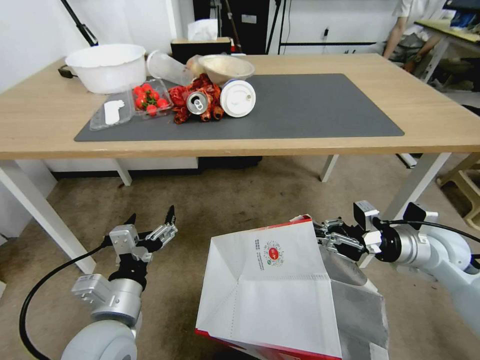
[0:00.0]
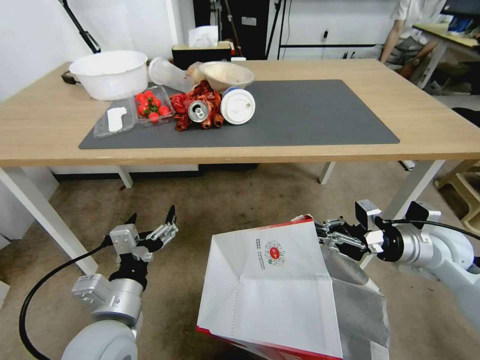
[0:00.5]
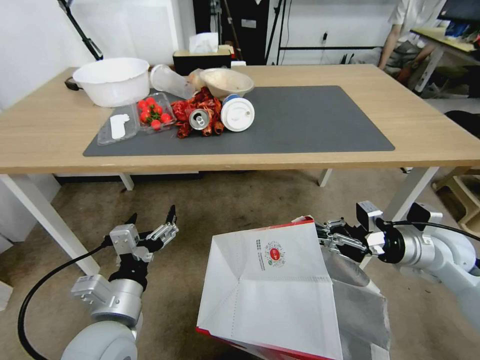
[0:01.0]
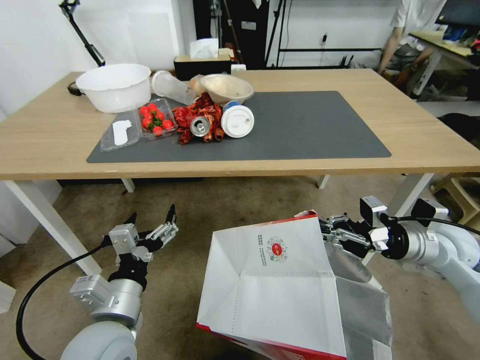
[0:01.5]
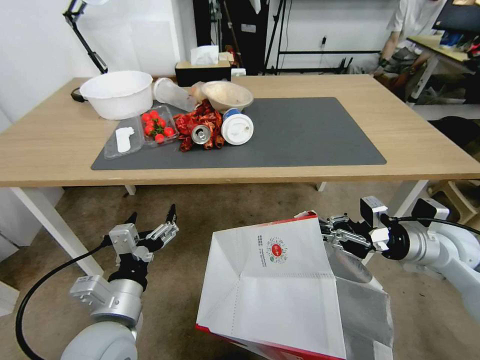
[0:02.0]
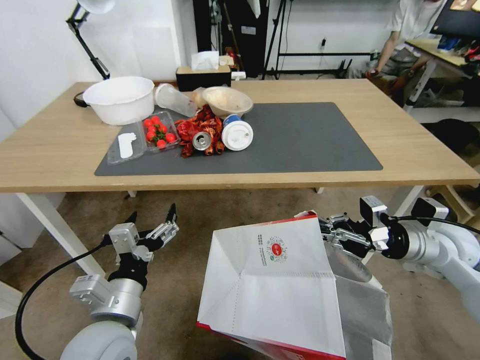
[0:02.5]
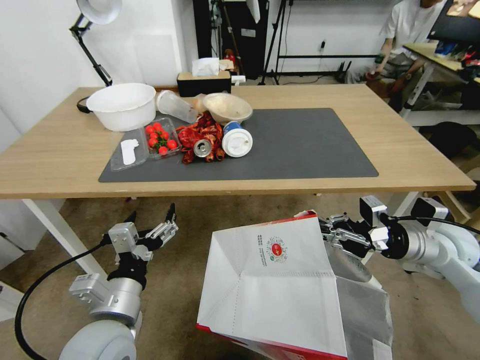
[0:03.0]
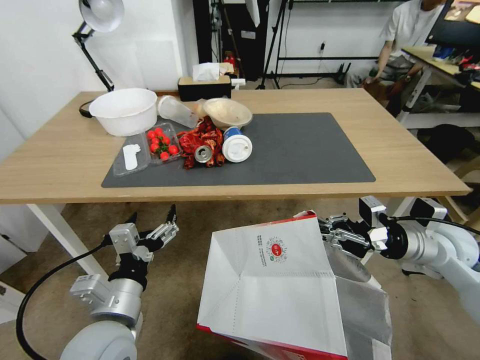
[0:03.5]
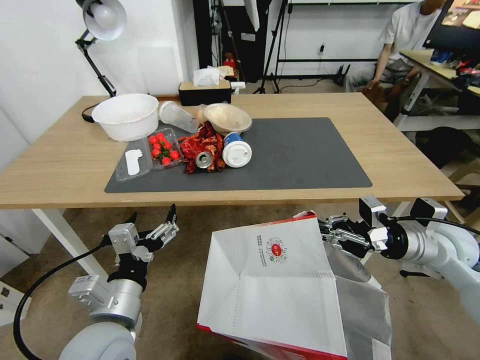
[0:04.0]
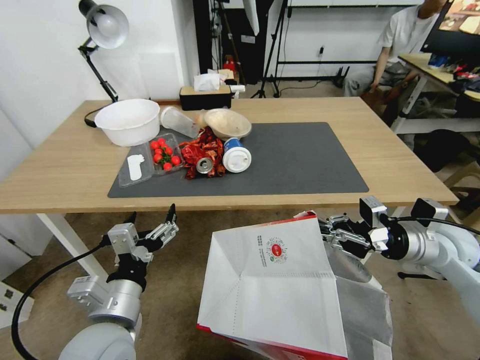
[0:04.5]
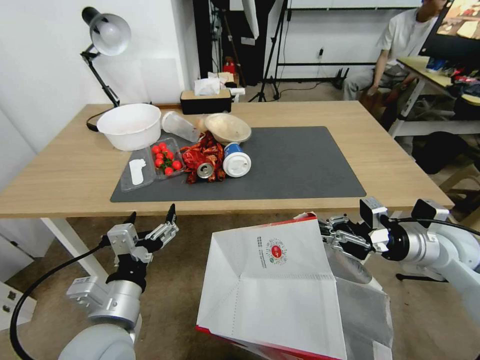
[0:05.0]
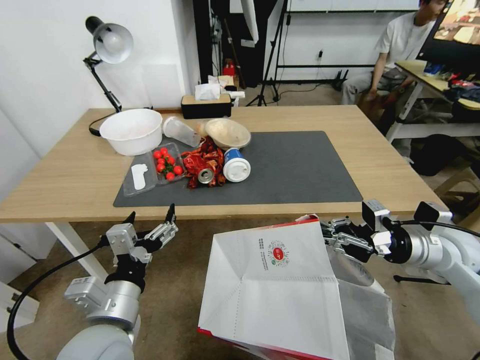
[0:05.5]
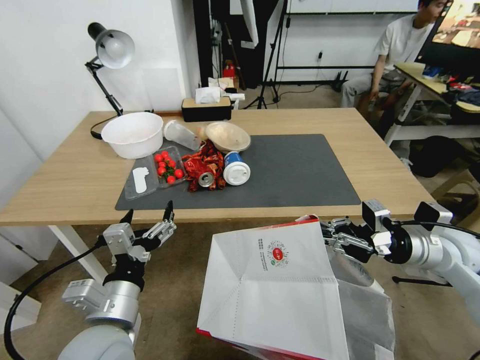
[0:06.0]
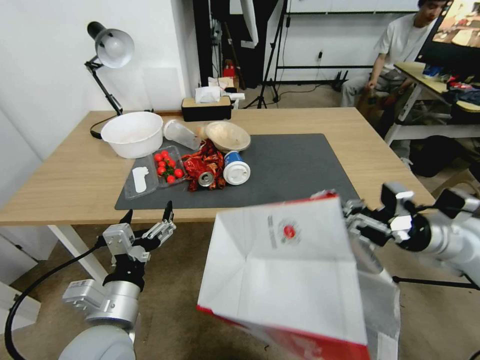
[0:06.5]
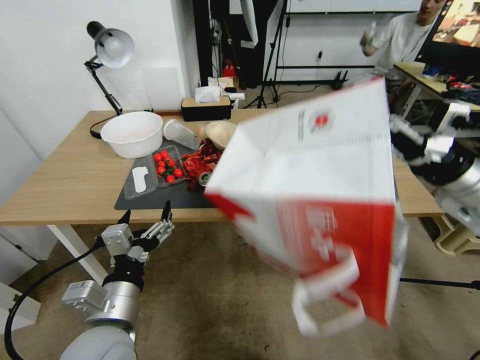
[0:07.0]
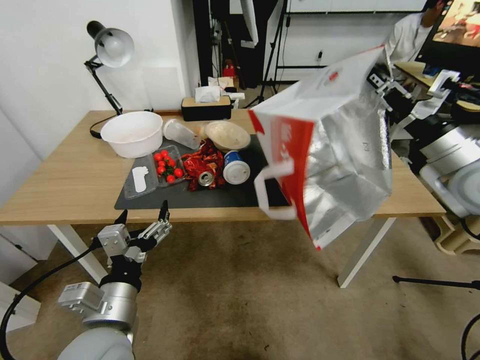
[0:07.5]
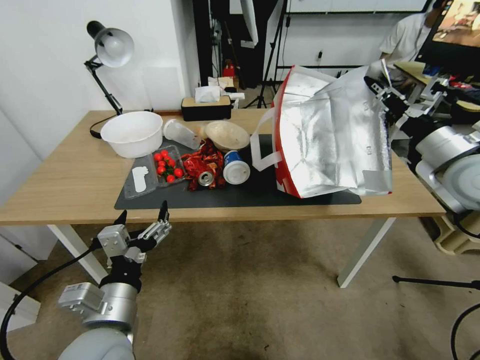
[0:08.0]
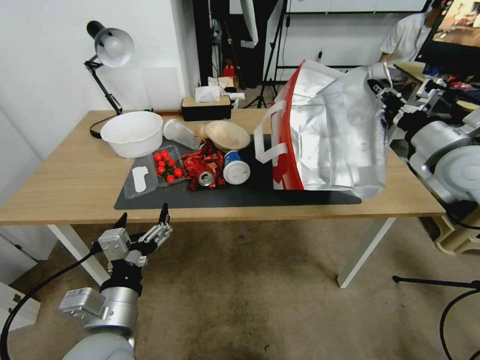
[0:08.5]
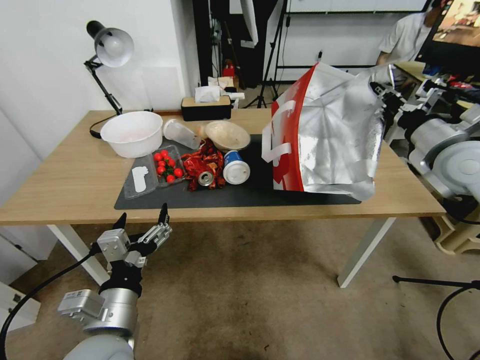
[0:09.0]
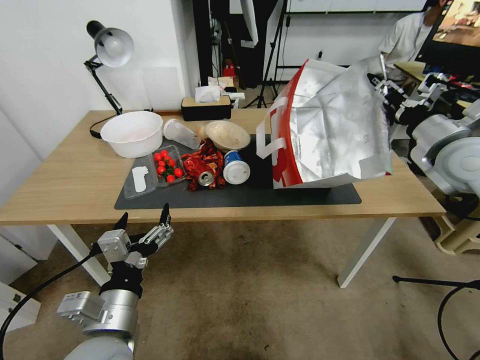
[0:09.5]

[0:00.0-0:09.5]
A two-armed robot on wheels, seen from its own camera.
Task of the whole recording: Pick up the food delivery bag from the floor and place it on the table.
0:05.5 to 0:07.5: The right gripper heads upward, covering about 15 cm.
0:07.5 to 0:09.5: The right gripper opens its fingers.

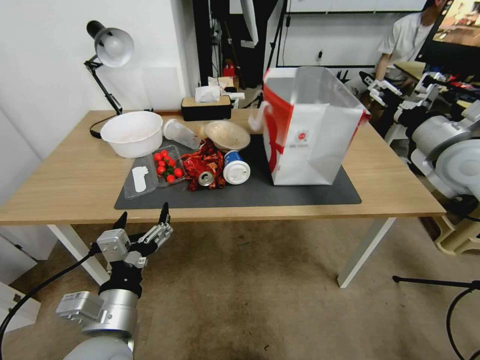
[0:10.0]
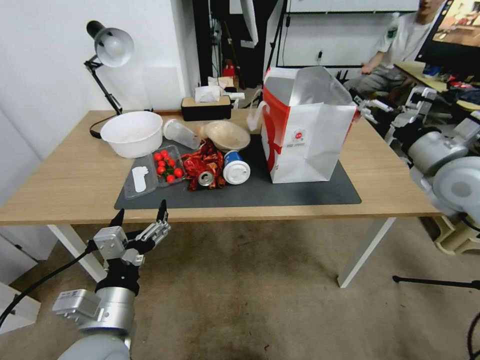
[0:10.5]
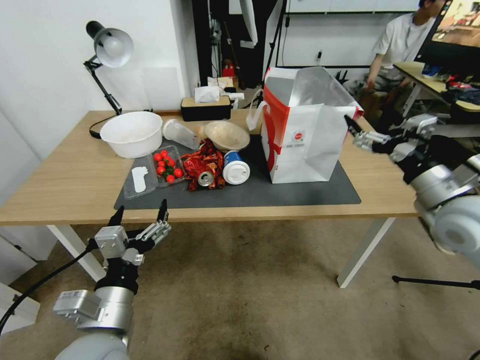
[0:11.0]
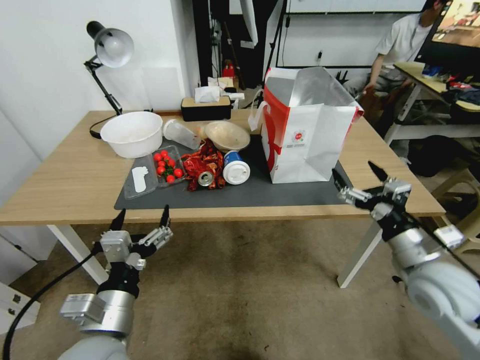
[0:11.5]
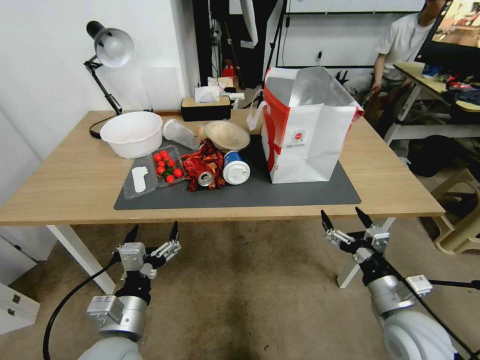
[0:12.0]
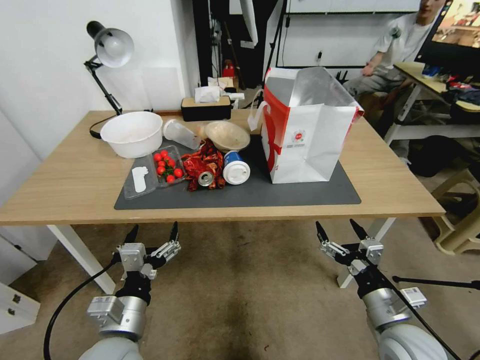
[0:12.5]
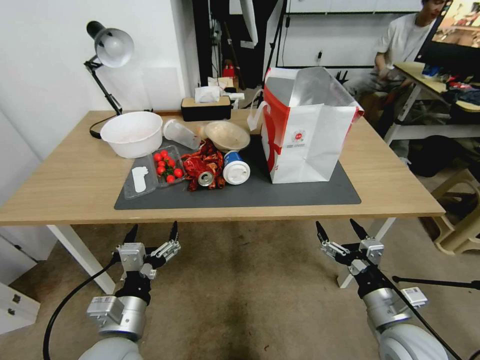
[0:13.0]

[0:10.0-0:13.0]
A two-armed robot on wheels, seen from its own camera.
Task of the whole recording: Pick up the food delivery bag from the floor and place it on the table.
0:10.0 to 0:11.5: The right gripper heads downward and backward, covering about 20 cm.
0:11.5 to 0:13.0: The right gripper moves downward and backward, about 10 cm.

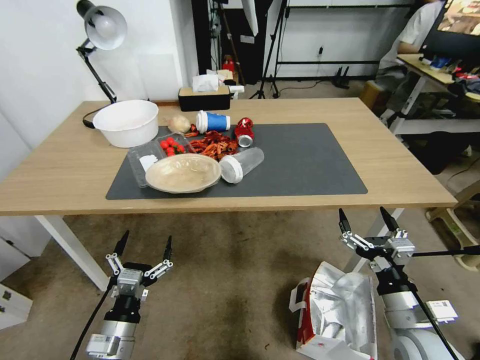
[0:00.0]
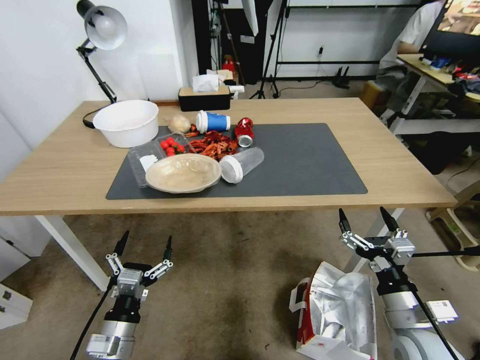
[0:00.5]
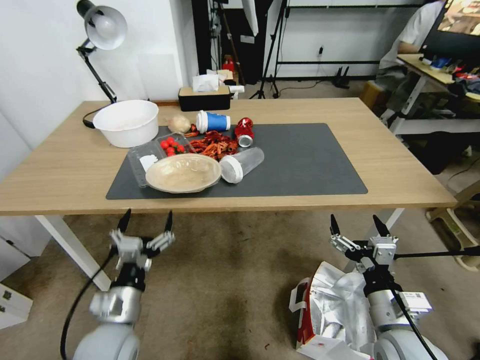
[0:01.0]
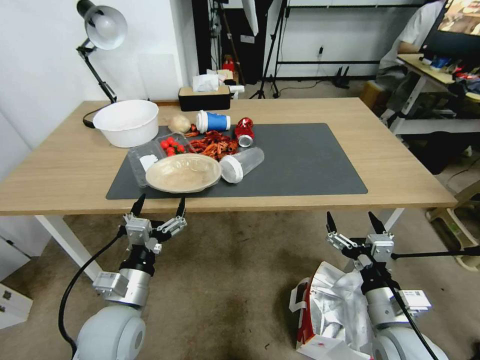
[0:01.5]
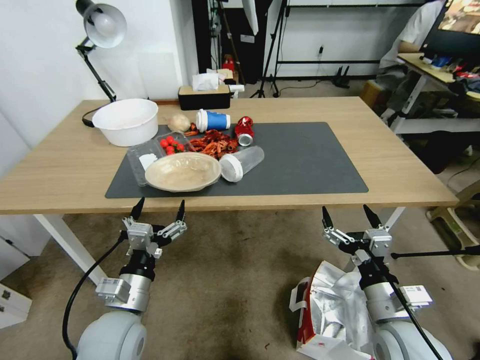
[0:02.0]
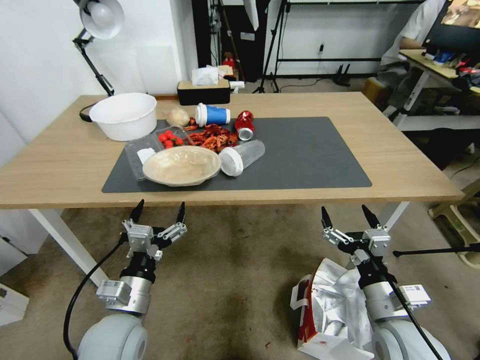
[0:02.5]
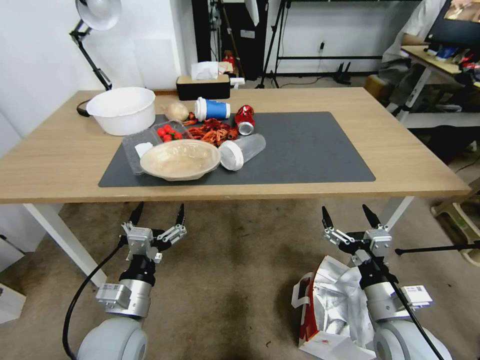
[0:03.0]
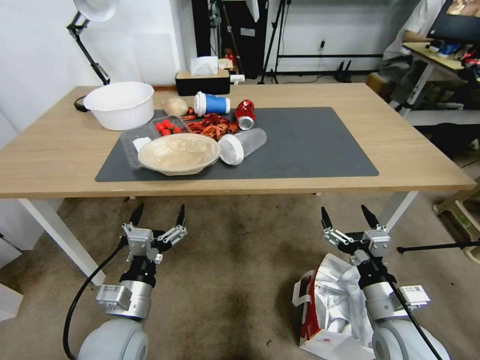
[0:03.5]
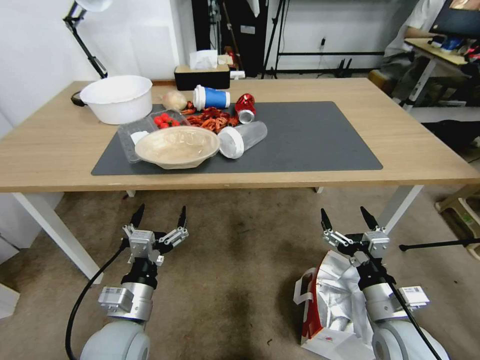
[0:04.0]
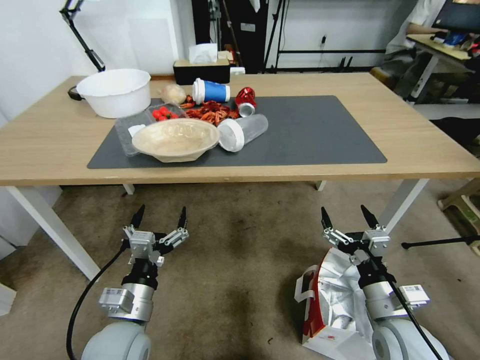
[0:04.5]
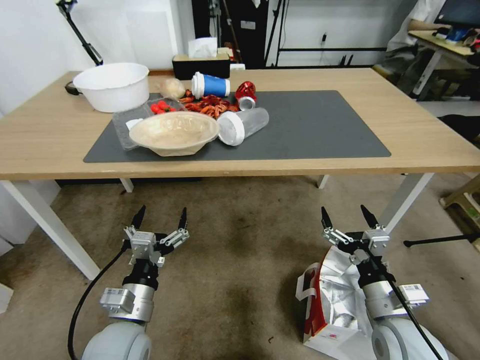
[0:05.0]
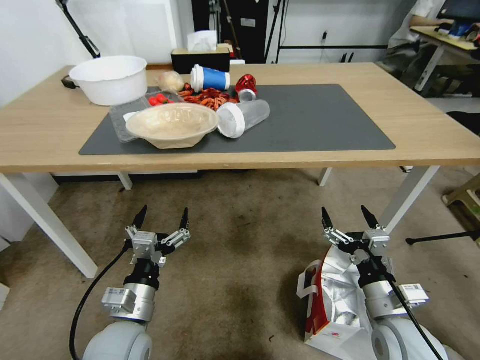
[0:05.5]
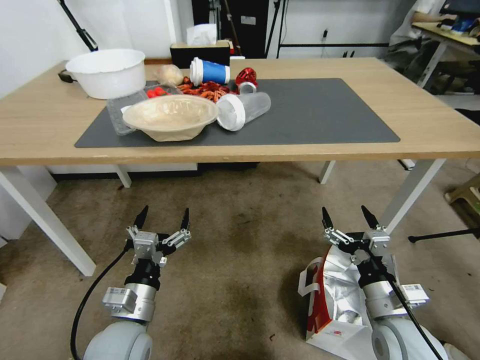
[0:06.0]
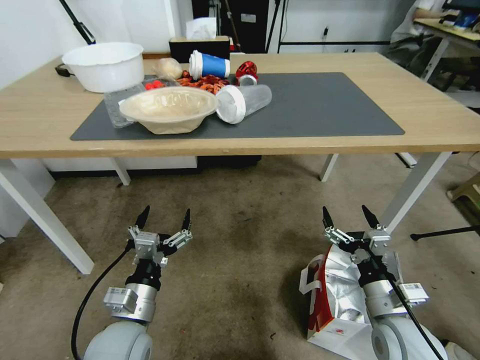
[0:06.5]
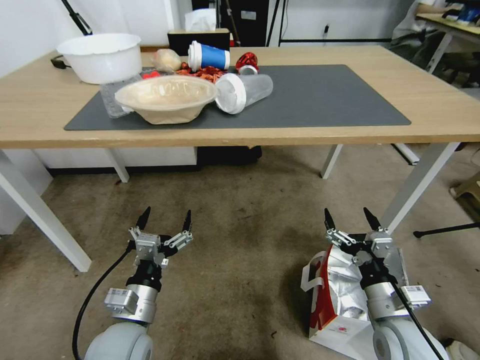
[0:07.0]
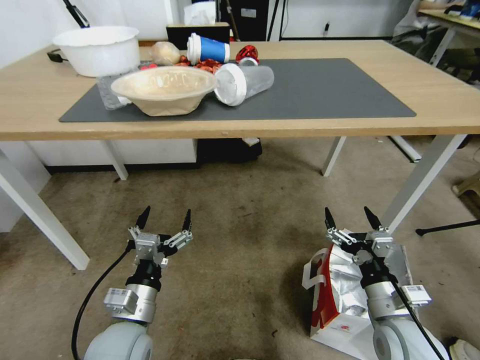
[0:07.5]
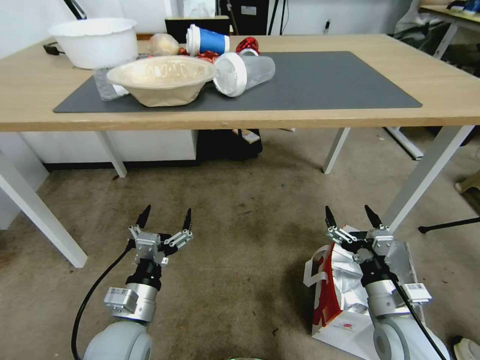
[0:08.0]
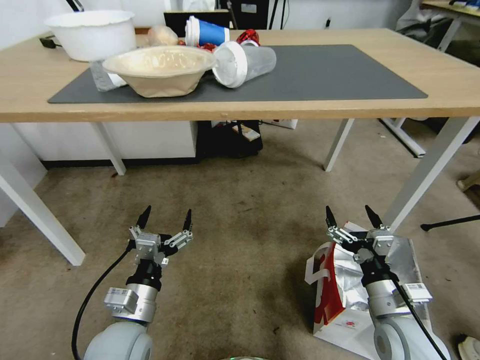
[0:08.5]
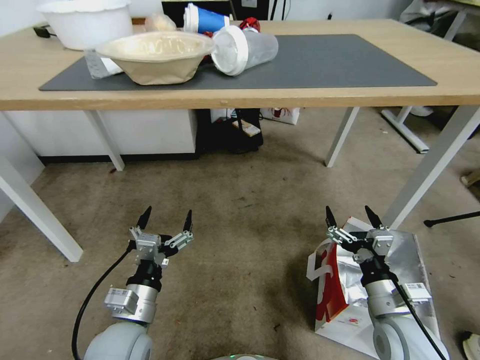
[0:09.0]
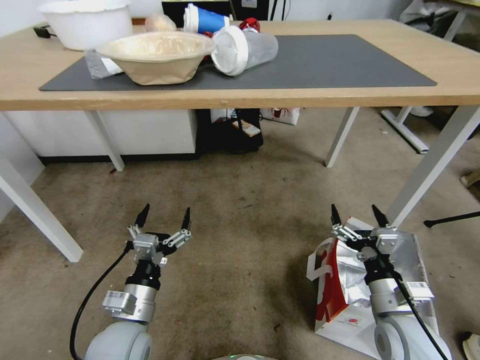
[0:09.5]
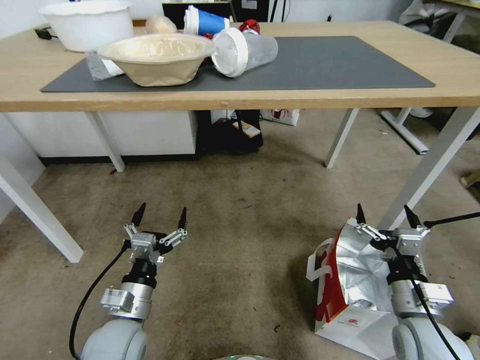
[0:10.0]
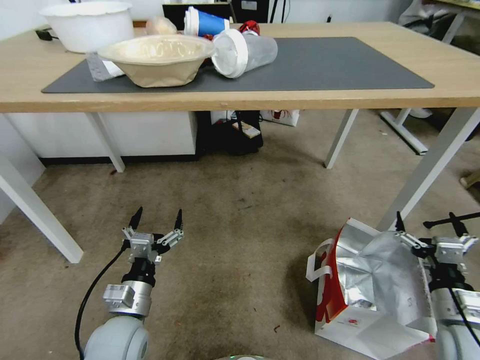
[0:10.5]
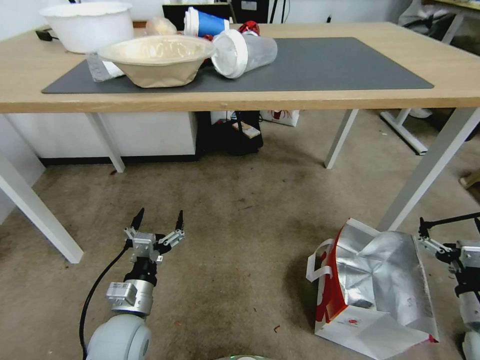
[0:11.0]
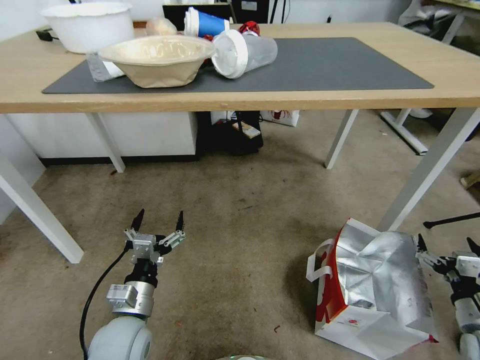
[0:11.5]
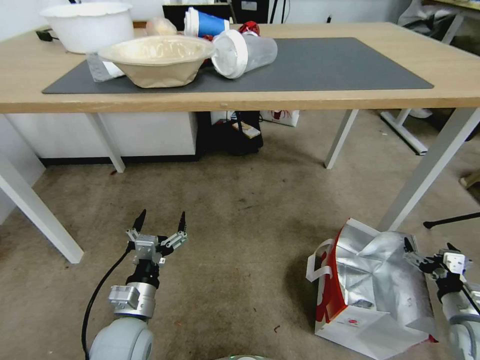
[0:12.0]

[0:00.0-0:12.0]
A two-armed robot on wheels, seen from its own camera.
Task of the whole recording: Pick up the food delivery bag from the floor and place it on the table.
0:10.0 to 0:12.0: The right gripper is displaced to the right and downward by roughly 20 cm.

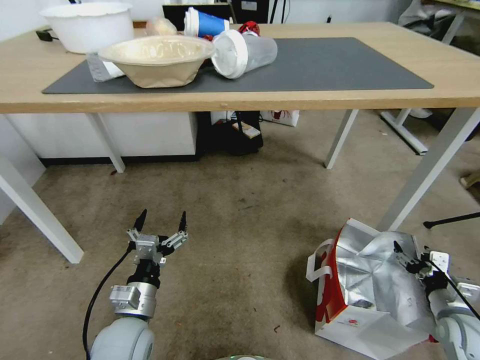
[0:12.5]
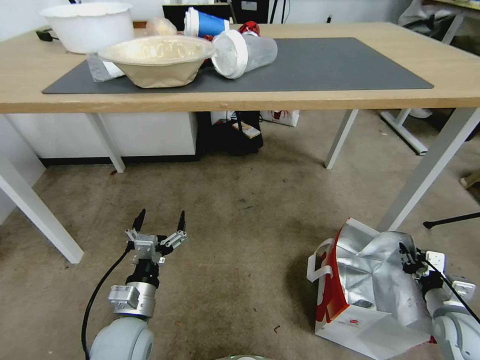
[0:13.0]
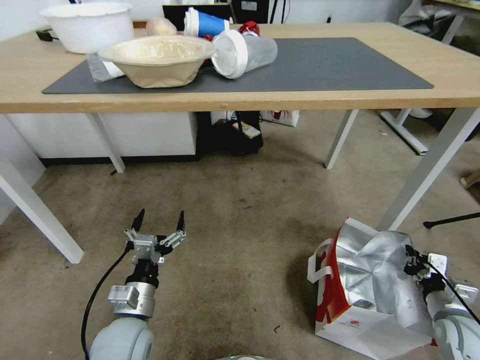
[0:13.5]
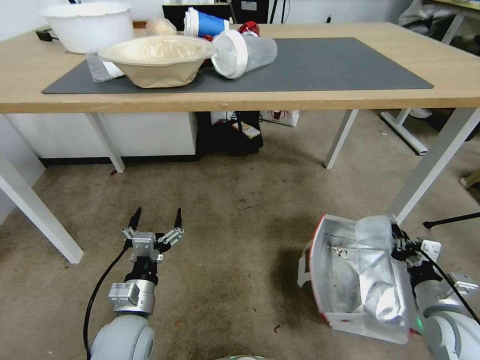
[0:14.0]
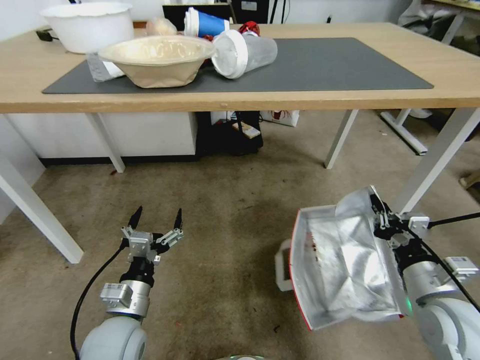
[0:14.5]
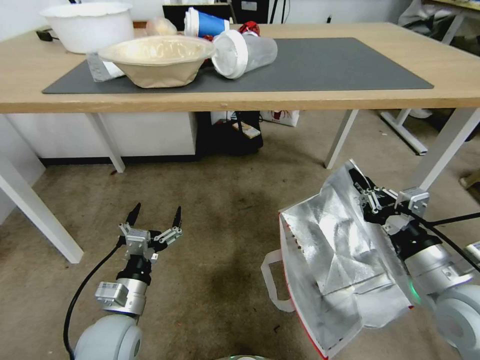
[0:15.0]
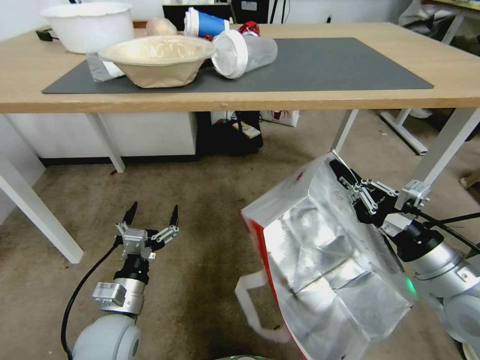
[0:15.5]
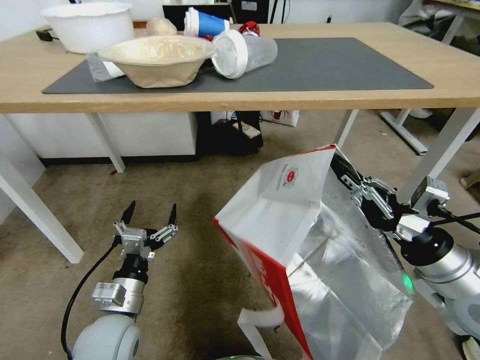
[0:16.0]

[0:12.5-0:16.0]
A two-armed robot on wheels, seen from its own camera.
Task of the whole recording: Pick up the food delivery bag from the floor and place it on the table.
0:12.5 to 0:14.5: The right gripper moves upward and to the left, about 15 cm, and closes its fingers.
0:14.5 to 0:16.0: The right gripper shifts about 10 cm upward.
